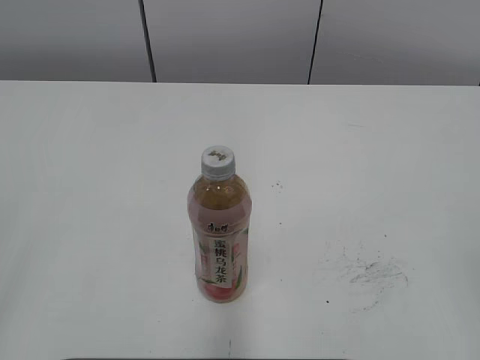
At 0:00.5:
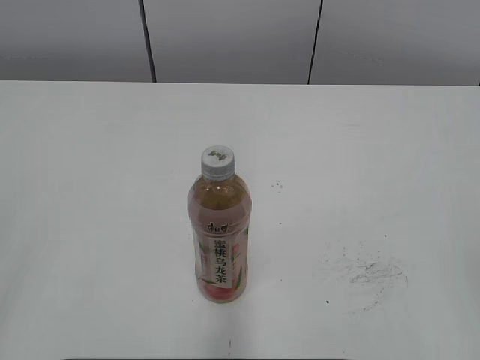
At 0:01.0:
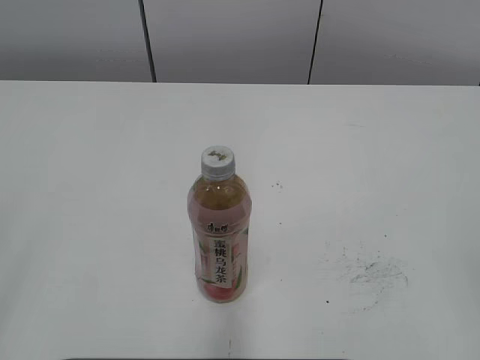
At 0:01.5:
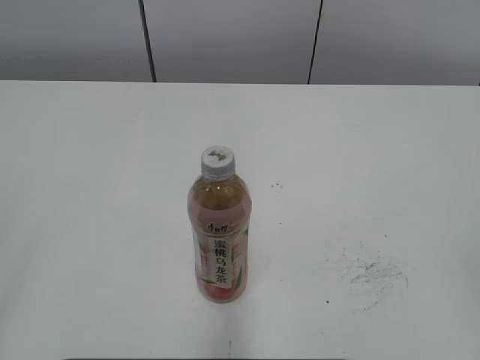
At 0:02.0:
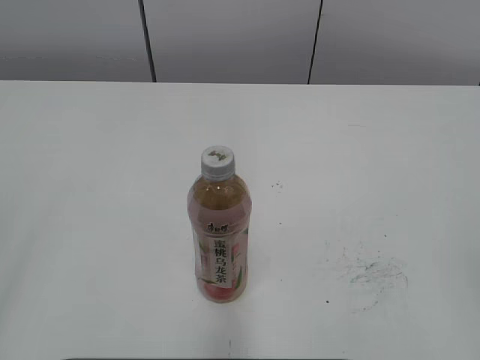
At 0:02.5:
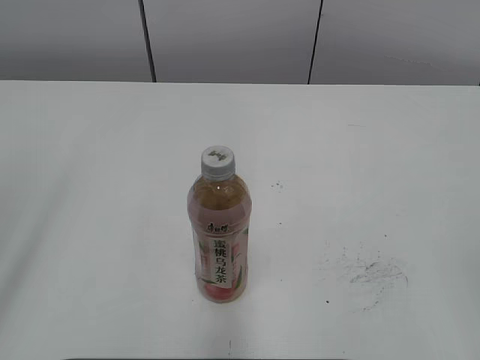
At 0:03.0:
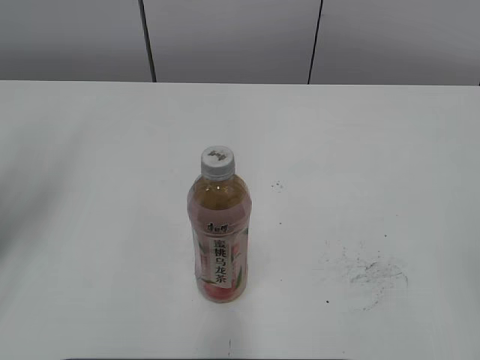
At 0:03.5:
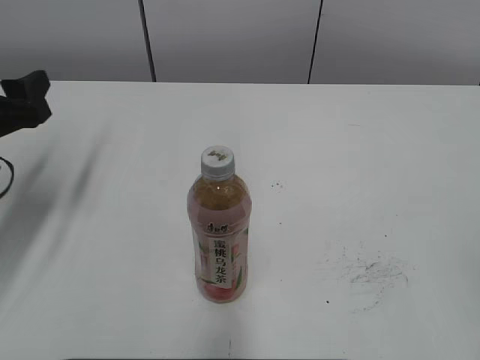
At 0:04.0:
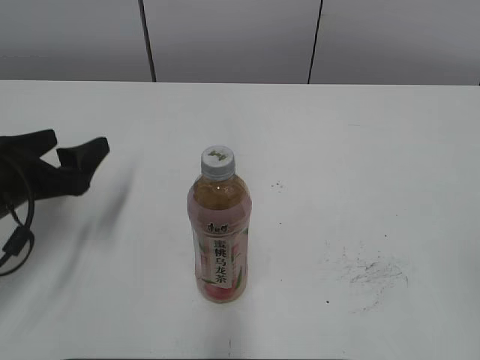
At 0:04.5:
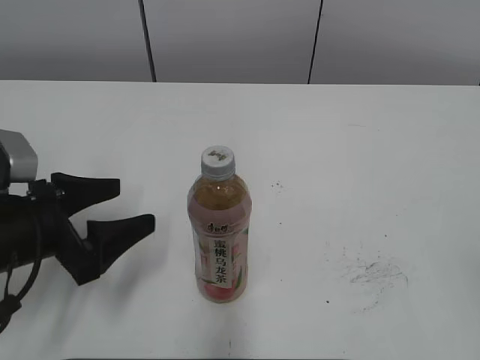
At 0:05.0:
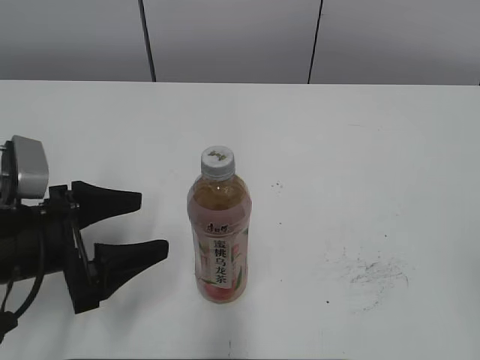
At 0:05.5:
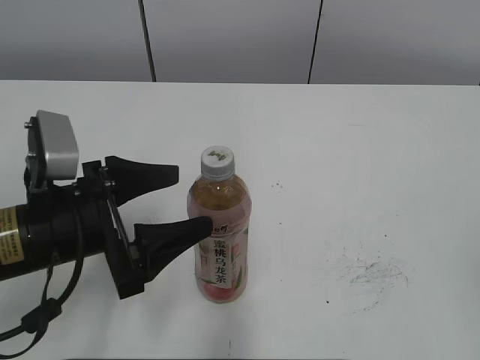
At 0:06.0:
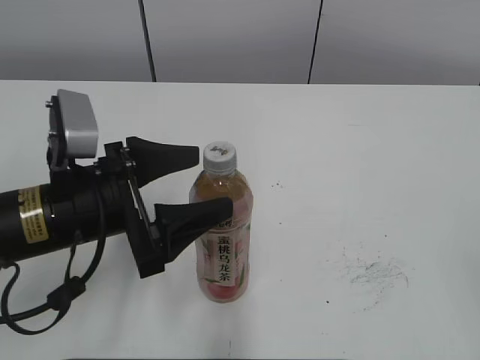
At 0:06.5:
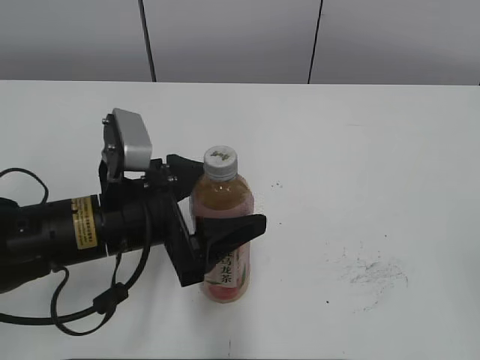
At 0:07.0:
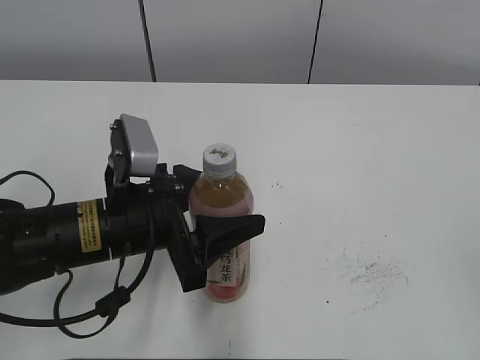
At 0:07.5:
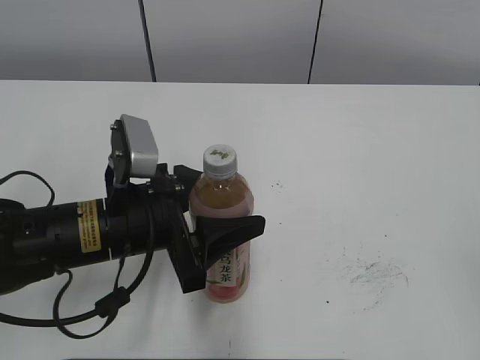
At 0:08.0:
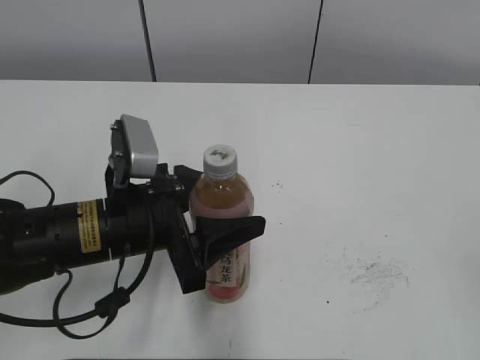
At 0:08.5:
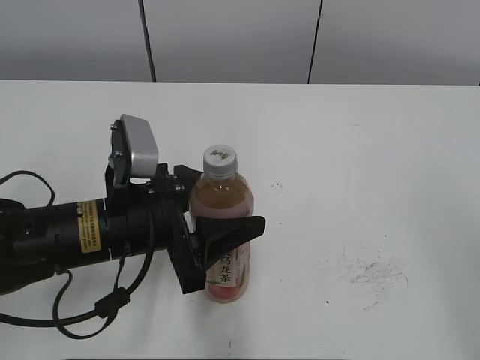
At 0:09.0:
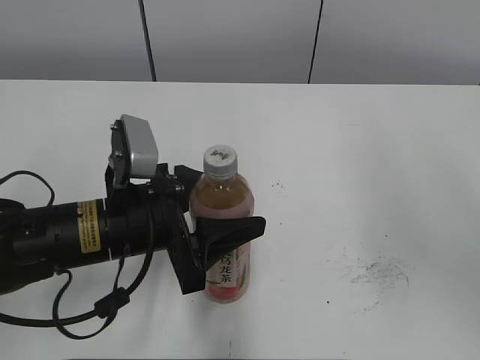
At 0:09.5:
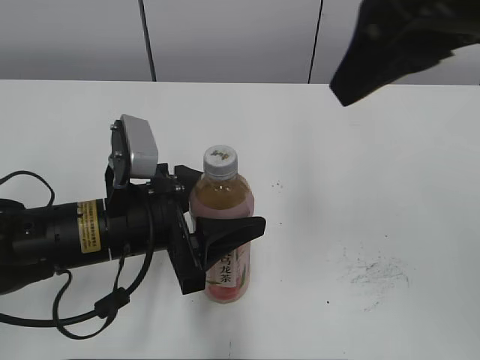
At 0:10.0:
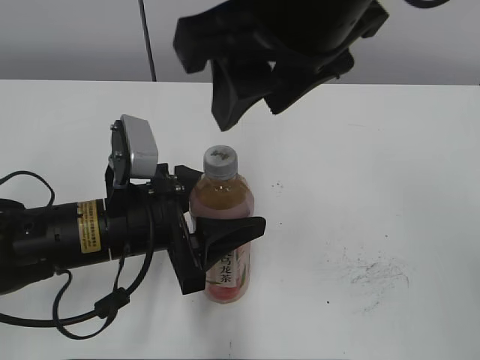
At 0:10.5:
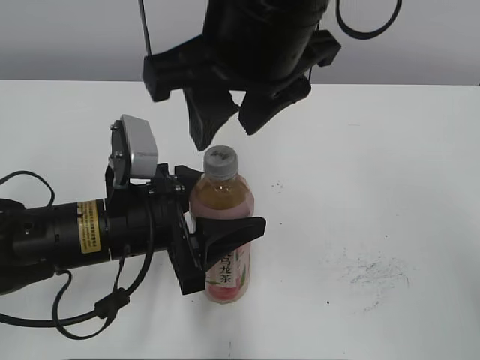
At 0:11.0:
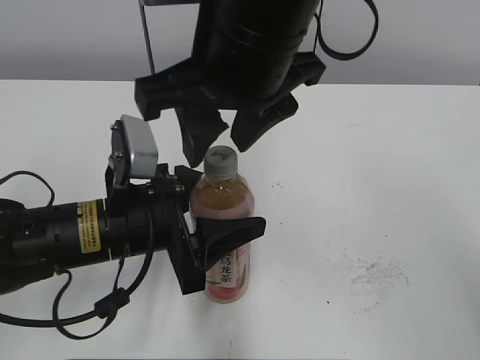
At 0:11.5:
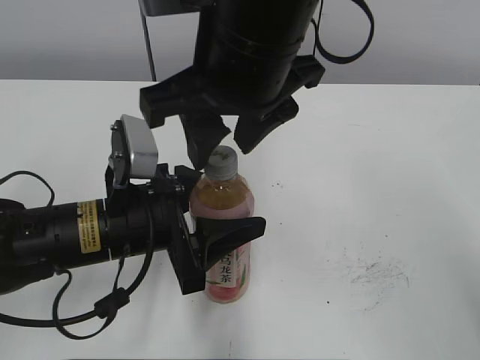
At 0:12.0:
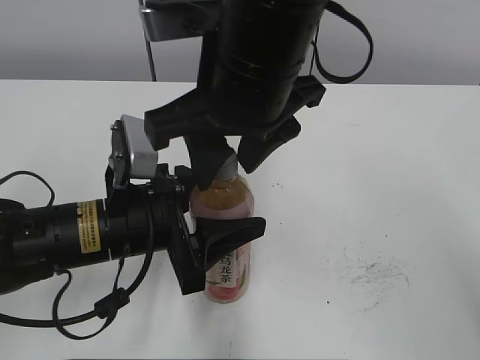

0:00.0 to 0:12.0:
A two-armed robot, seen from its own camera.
Step, 0:00.0 to 0:06.5: Grab the Peach Oolong Tea with the left hand.
0:02.0 to 0:04.0: The left gripper heads forward and downward, covering some 30 cm, and opens its fingers.
0:04.0 to 0:06.0: The left gripper heads to the right, covering about 10 cm.
0:06.0 to 0:08.0: The left gripper closes its fingers.
0:08.0 to 0:10.0: The right gripper moves to the left and forward, approximately 35 cm.
0:10.0 to 0:12.0: The right gripper shifts roughly 5 cm downward.

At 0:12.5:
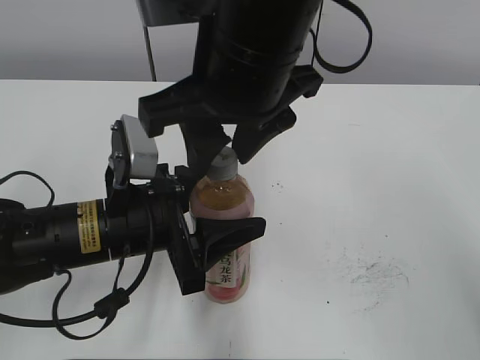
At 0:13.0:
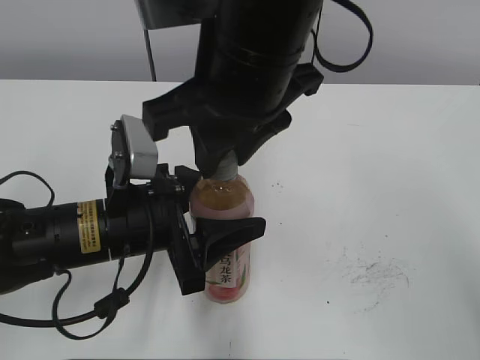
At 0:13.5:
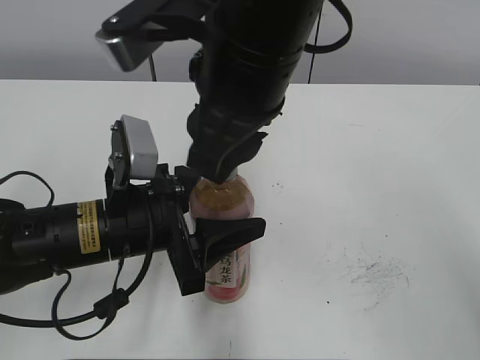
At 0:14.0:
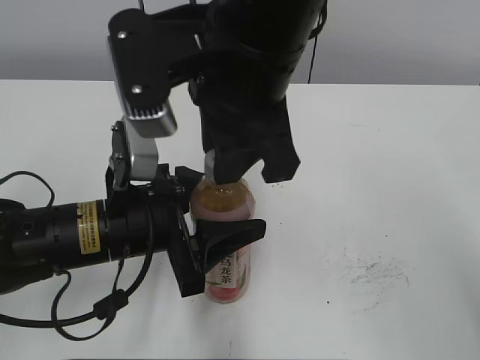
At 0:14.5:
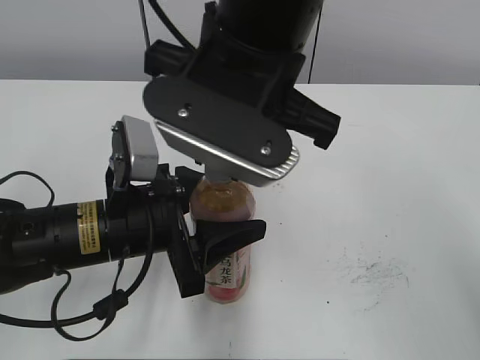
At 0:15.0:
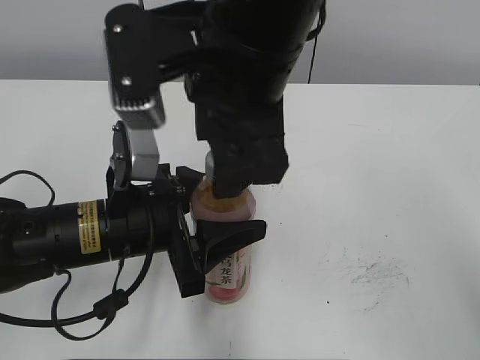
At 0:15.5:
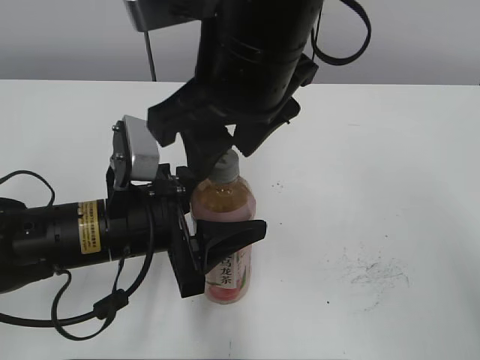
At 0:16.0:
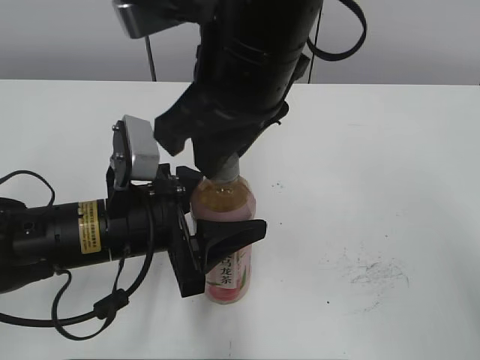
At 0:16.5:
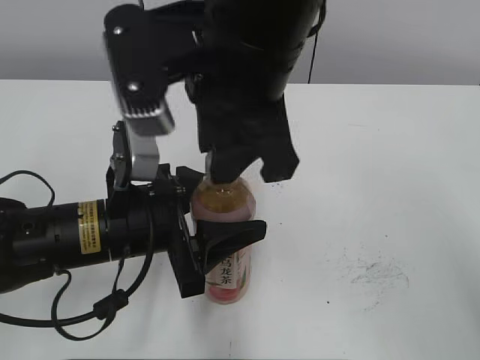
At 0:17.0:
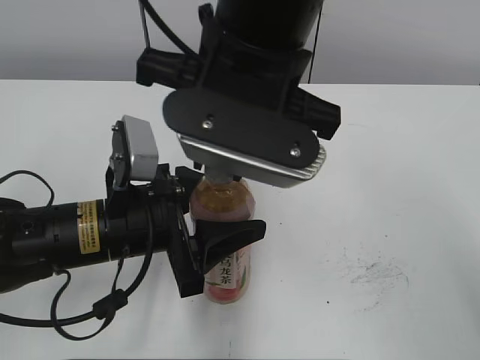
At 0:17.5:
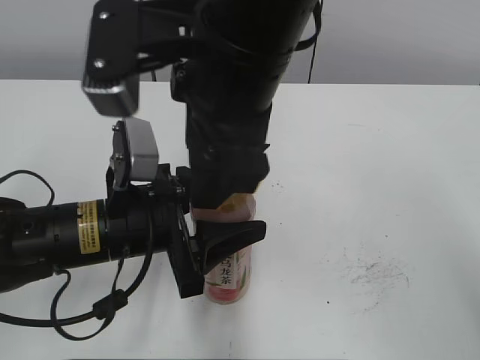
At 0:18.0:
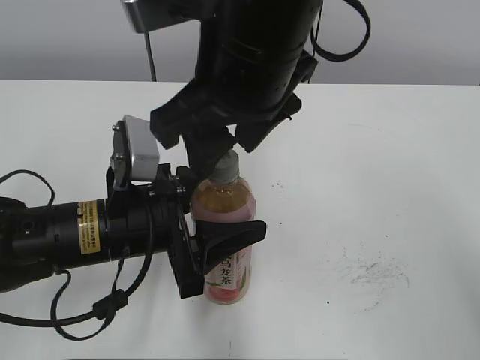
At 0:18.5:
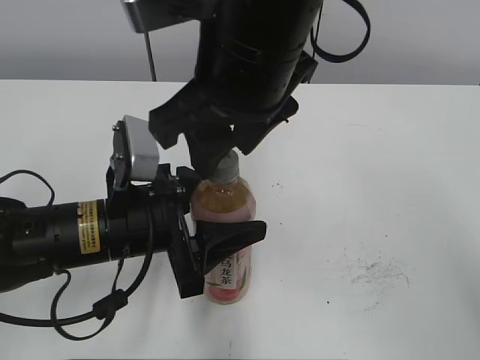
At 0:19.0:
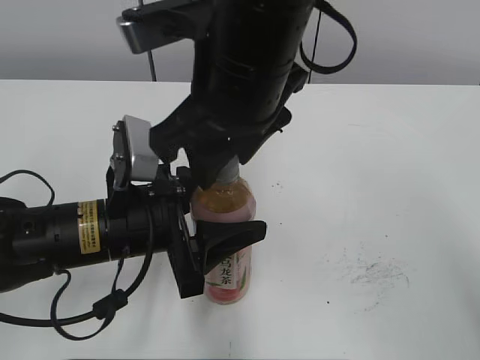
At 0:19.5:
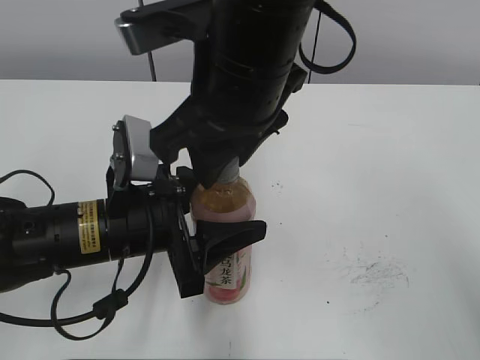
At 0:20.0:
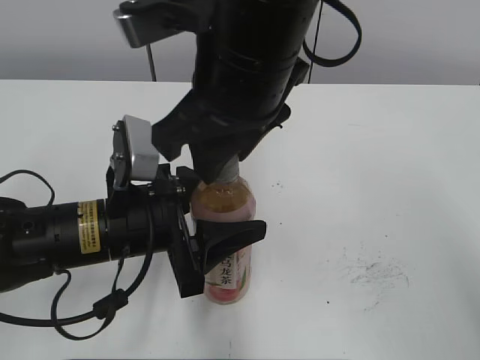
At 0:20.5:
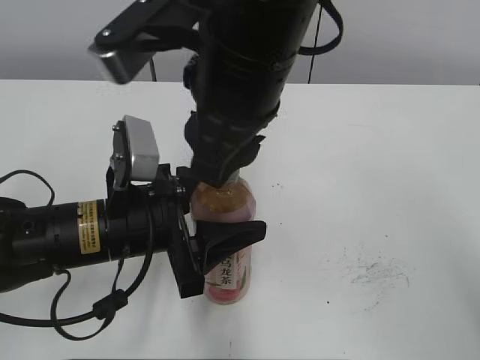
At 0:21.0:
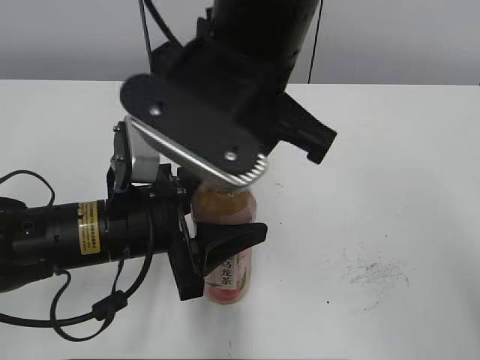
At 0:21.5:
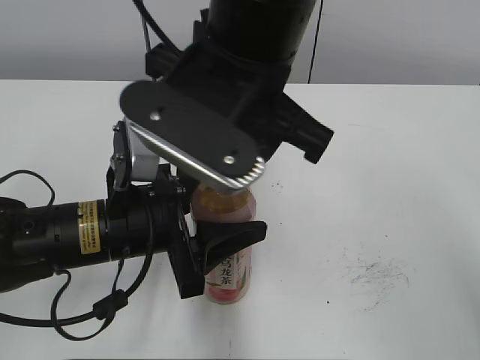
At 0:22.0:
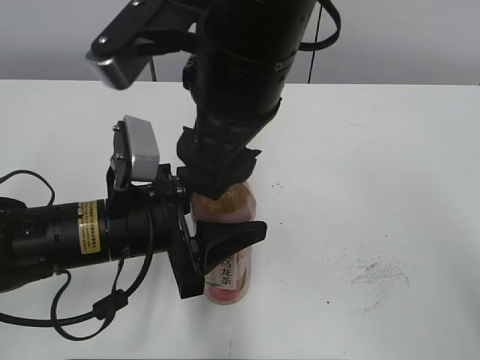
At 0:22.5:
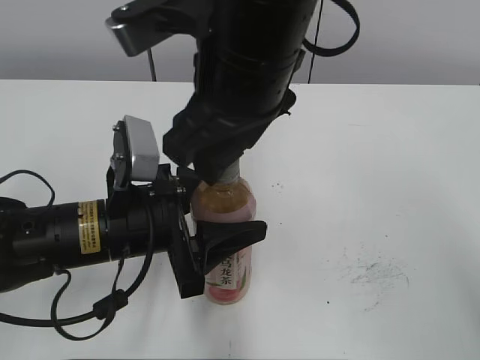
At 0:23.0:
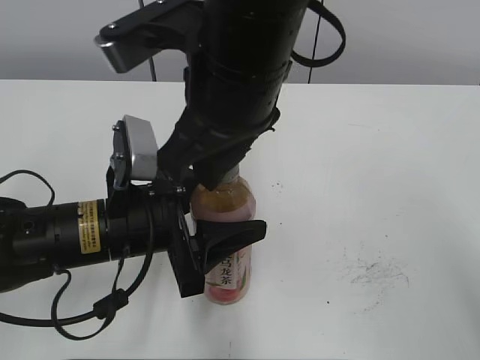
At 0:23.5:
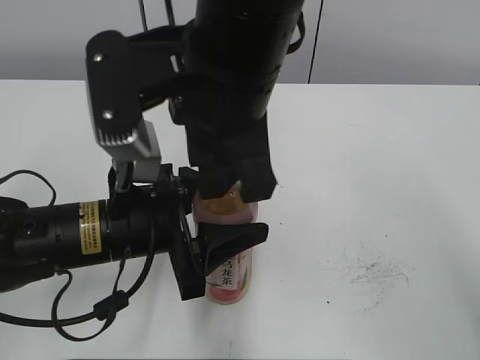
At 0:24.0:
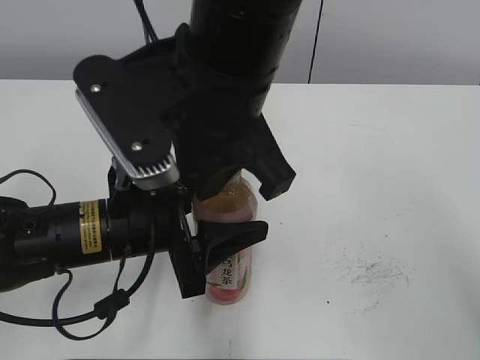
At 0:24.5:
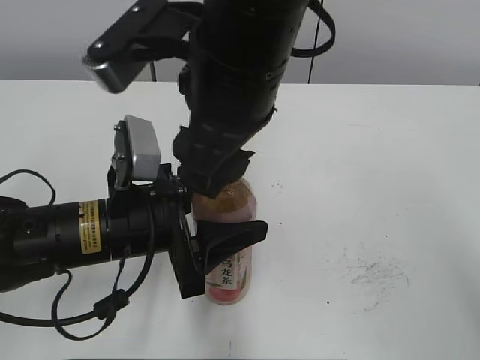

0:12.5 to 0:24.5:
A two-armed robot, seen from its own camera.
0:12.5 to 0:14.5: The right gripper closes.
0:14.5 to 0:16.5: The right gripper opens and closes again.
0:16.5 to 0:18.5: The right gripper opens up.
0:18.5 to 0:20.5: The right gripper closes.
0:20.5 to 0:22.5: The right gripper opens.
0:22.5 to 0:24.5: The right gripper closes and opens again.

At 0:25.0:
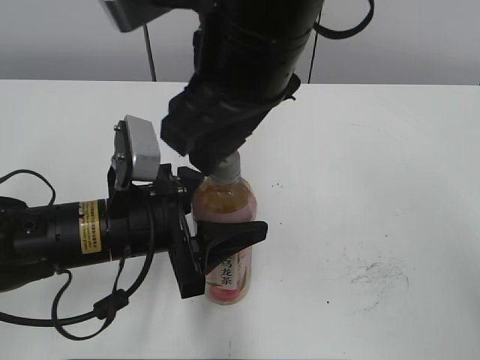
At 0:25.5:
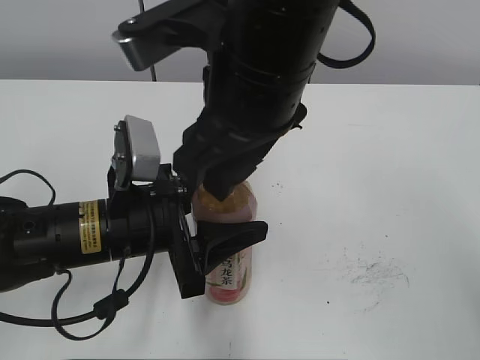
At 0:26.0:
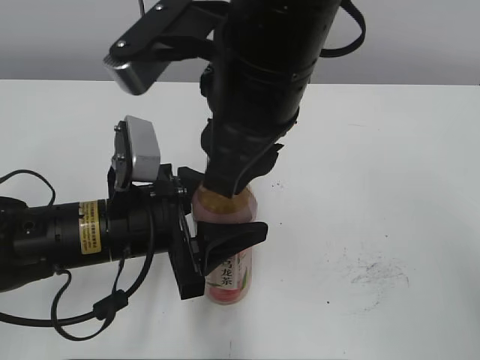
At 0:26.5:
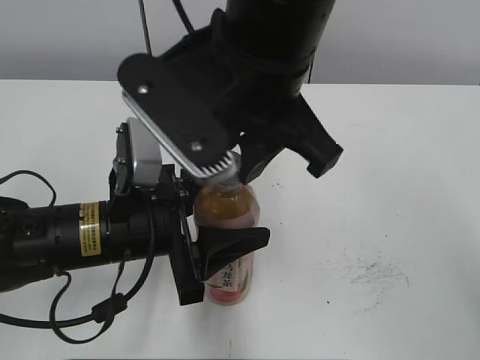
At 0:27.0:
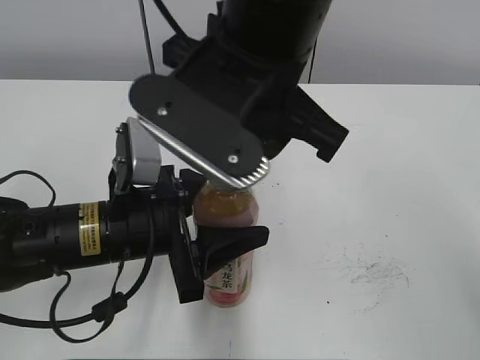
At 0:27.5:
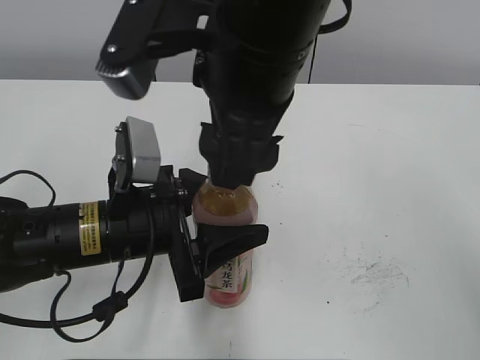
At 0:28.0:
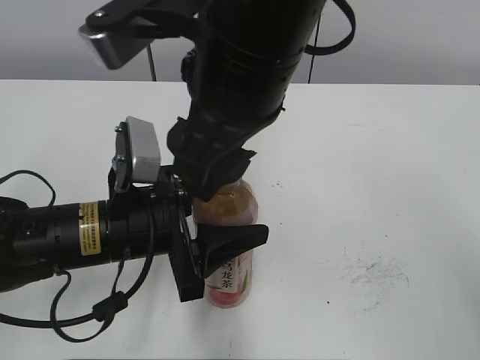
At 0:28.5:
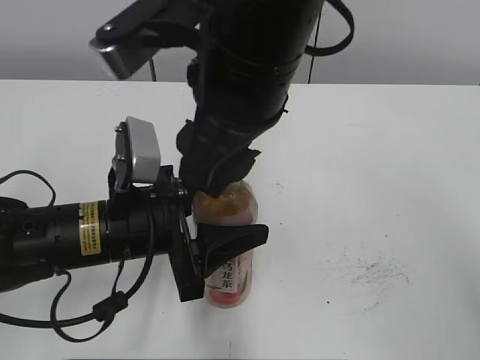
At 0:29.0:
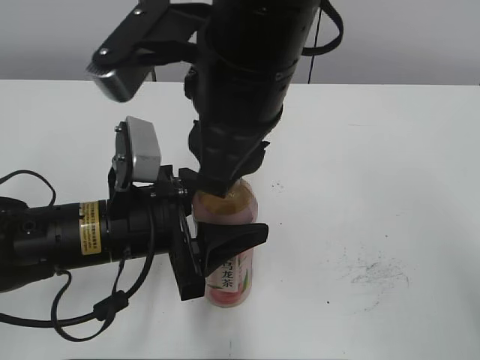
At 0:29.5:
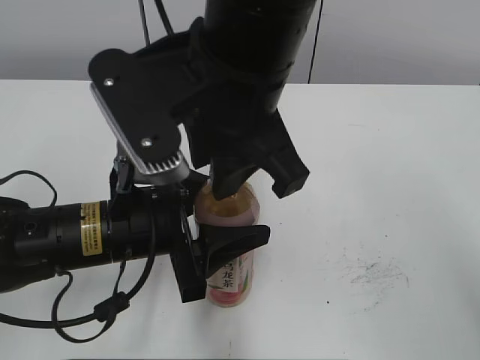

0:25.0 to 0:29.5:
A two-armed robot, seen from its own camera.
0:25.0 to 0:27.0: The right gripper closes up.
0:27.0 to 0:29.5: The right gripper opens and closes again.
